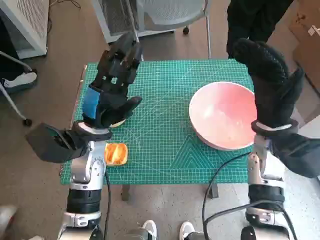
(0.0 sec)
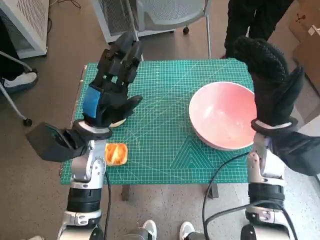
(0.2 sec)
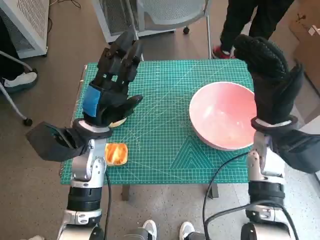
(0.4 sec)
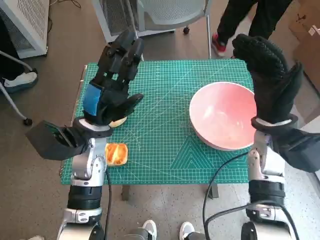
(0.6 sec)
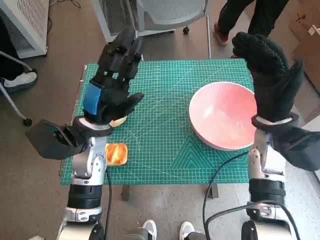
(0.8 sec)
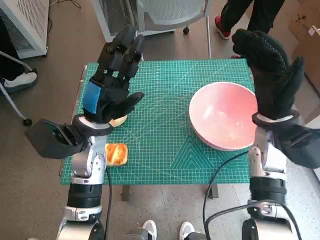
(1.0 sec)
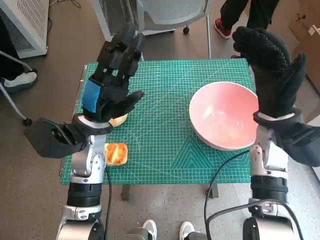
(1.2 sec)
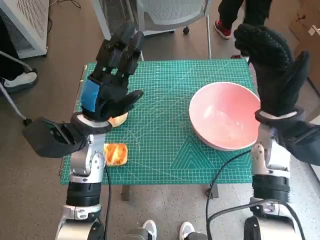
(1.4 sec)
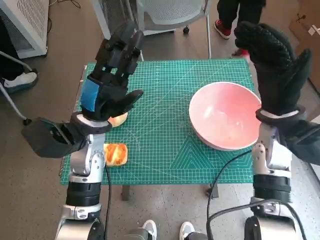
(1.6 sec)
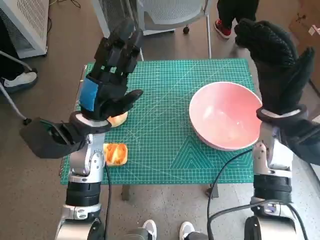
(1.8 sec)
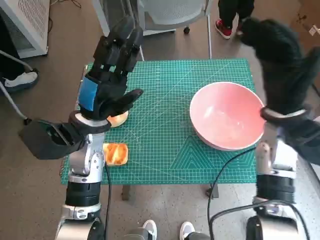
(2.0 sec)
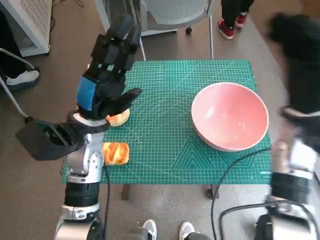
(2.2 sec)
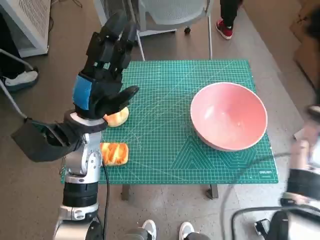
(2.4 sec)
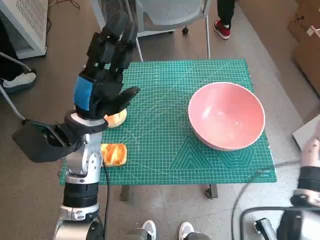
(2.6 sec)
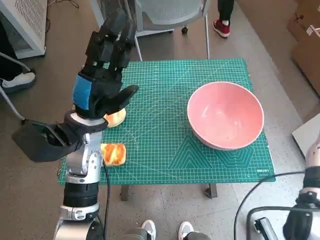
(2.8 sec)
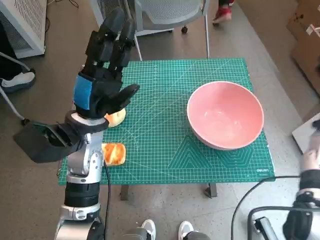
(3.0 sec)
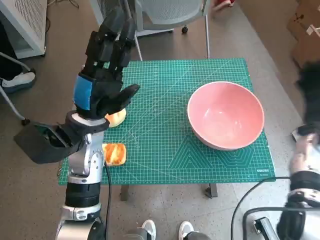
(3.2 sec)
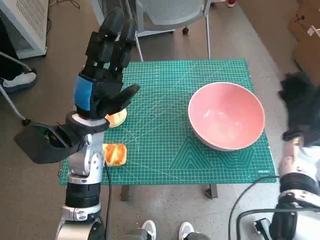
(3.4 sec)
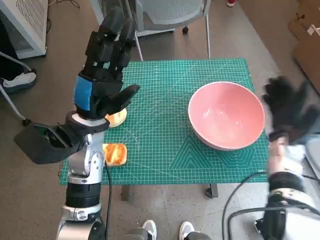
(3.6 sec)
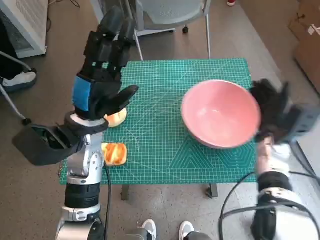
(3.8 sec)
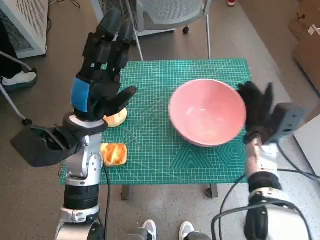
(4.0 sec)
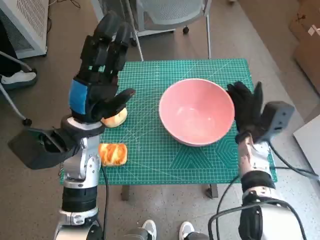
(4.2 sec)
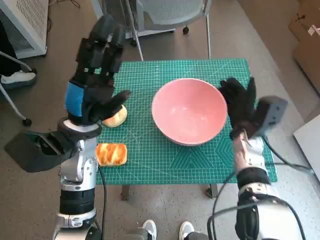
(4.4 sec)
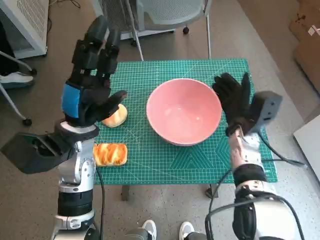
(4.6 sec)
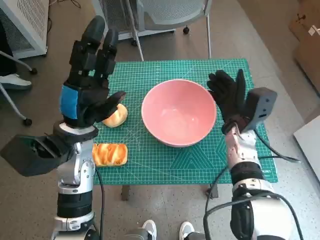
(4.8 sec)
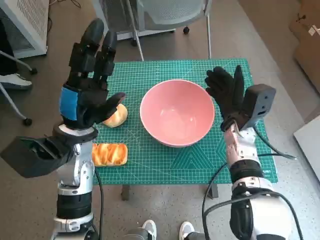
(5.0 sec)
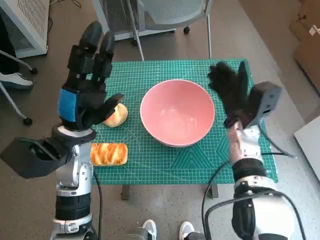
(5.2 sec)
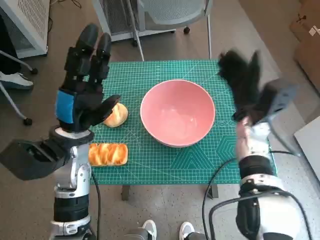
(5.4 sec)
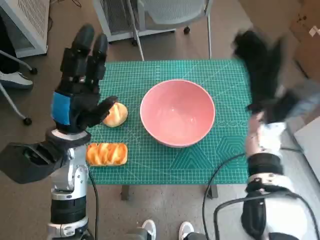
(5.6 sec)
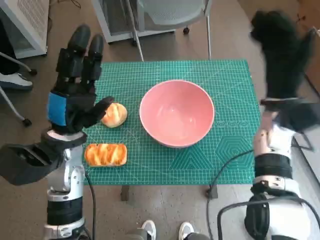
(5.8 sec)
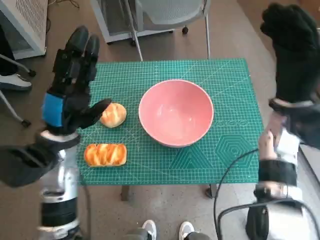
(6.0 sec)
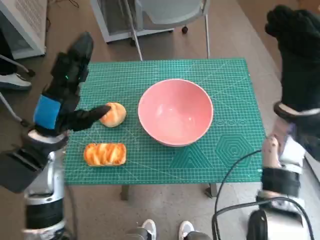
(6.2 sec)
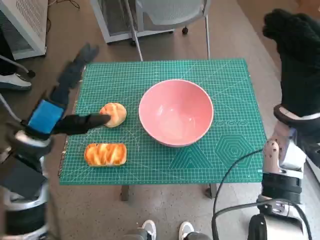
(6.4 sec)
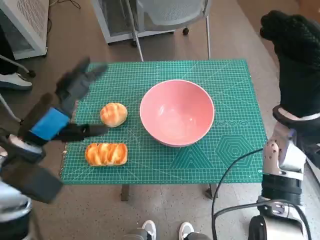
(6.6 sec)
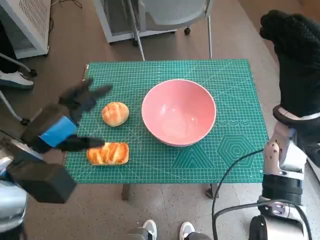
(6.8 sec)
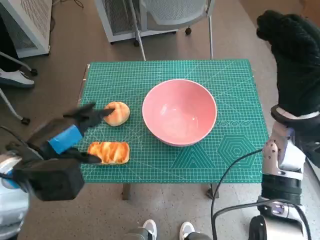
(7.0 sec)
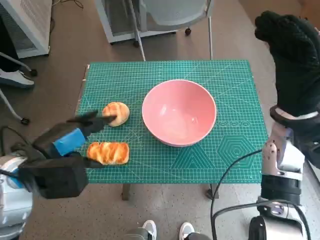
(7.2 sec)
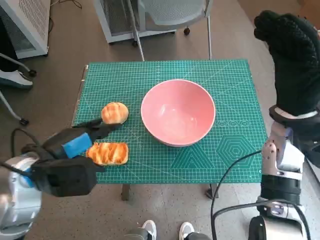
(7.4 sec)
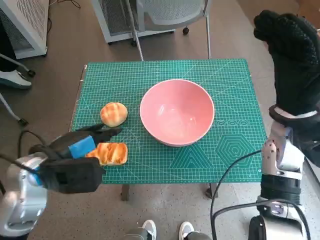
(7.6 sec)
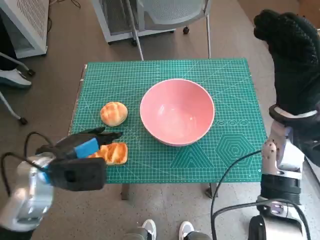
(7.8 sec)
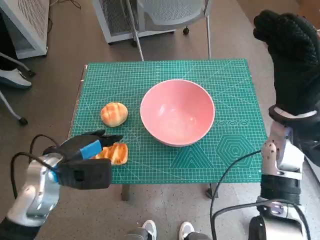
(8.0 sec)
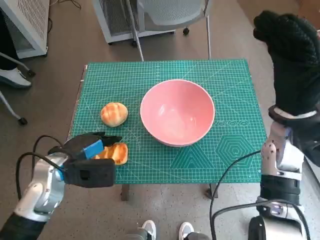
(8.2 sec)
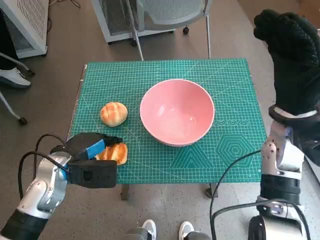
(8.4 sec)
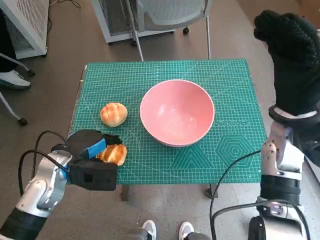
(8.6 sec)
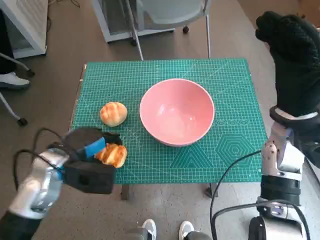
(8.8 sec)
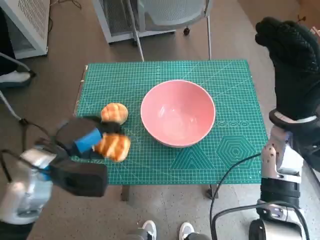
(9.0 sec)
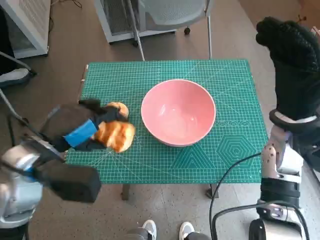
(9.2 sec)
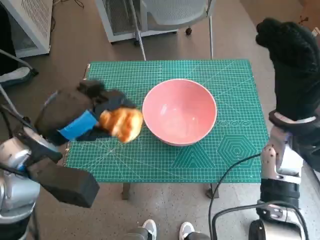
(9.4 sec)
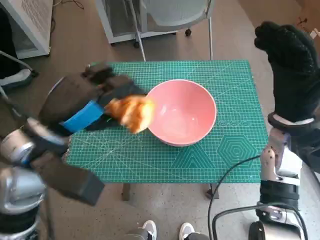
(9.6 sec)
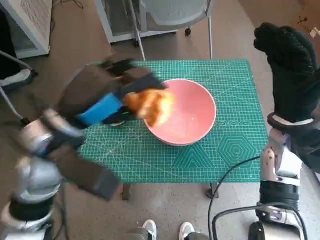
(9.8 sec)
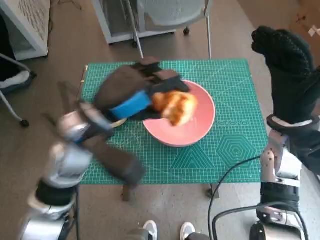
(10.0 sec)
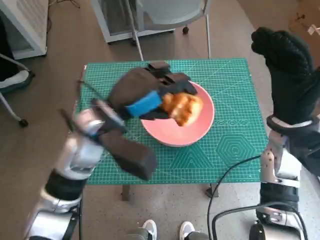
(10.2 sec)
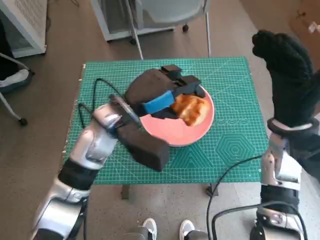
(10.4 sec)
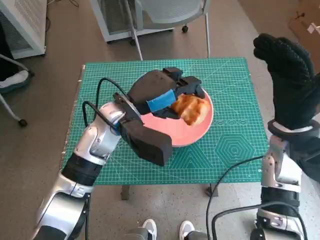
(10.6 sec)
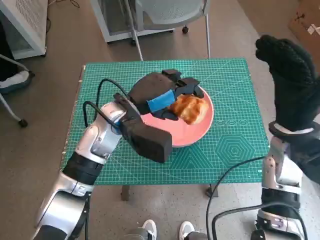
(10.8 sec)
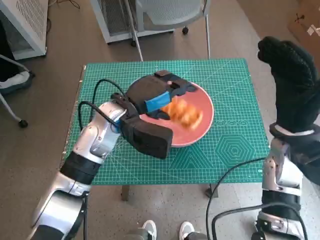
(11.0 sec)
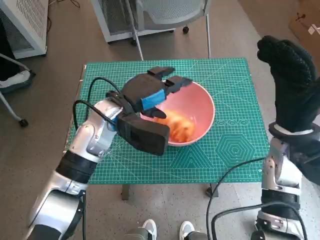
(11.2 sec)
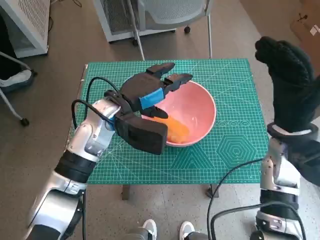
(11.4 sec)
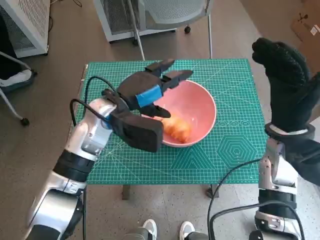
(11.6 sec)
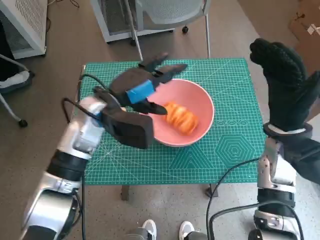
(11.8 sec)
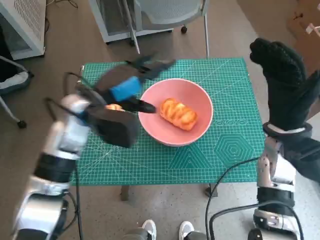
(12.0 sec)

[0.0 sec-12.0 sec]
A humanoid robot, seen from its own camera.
Step, 0.0 sec to 5.0 sec: Move the pink bowl to the center of table with right hand.
Step, 5.2 sec to 8.4 sec: Grasp the long bread with left hand.
Step, 8.6 sec to 11.2 sec: Place the long bread in pink bowl with left hand.
1.6 sec to 3.0 sec: The right hand shifts some 10 cm to the right.
3.0 sec to 4.4 sec: The right hand shifts about 15 cm to the left and downward.
4.4 sec to 6.0 sec: The right hand moves upward, some 10 cm.
9.0 sec to 10.4 sec: The left hand moves to the right and forward, some 15 cm.
10.4 sec to 12.0 sec: The left hand moves some 5 cm.

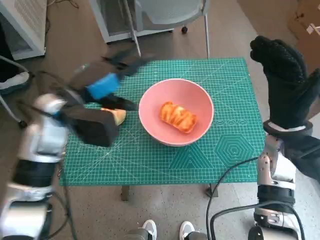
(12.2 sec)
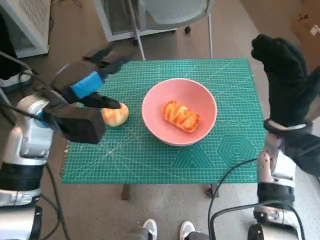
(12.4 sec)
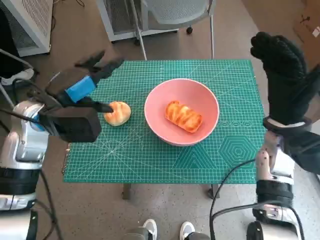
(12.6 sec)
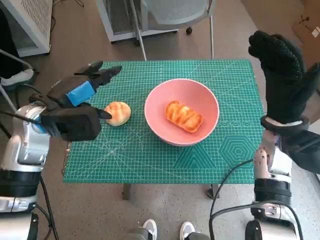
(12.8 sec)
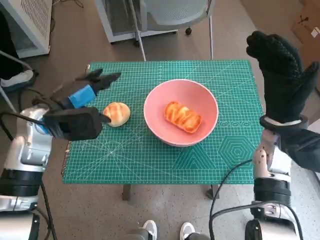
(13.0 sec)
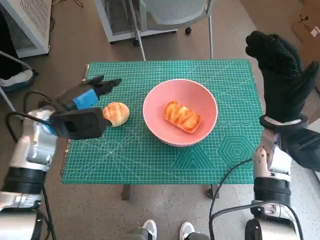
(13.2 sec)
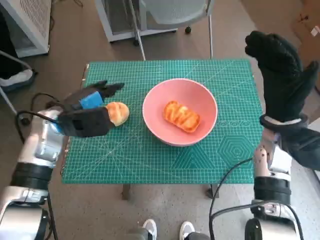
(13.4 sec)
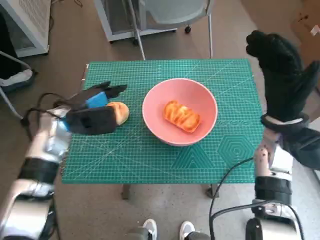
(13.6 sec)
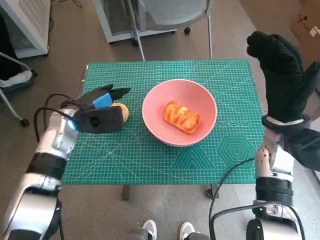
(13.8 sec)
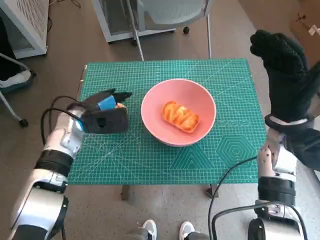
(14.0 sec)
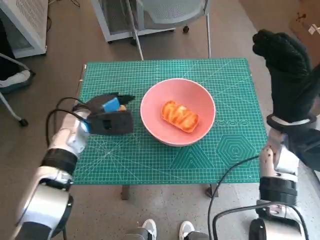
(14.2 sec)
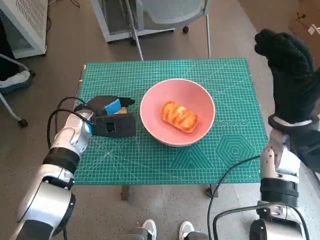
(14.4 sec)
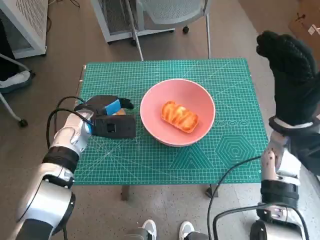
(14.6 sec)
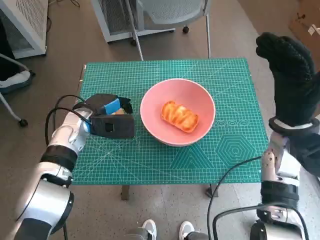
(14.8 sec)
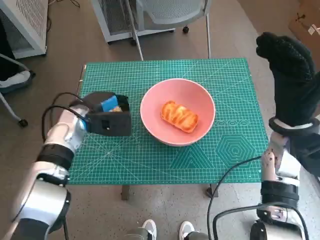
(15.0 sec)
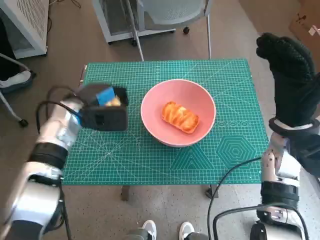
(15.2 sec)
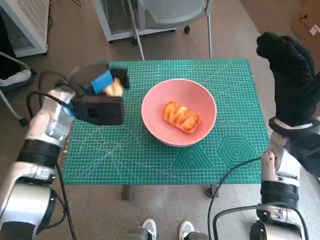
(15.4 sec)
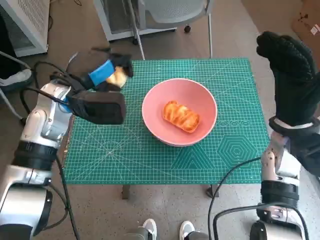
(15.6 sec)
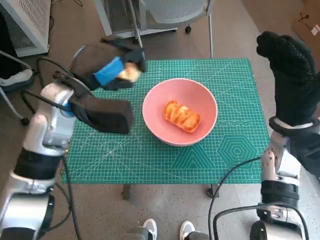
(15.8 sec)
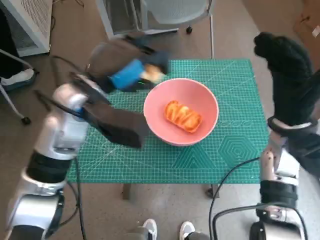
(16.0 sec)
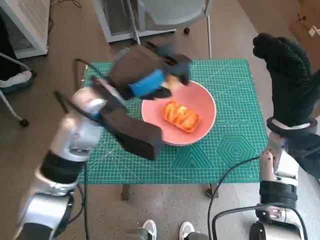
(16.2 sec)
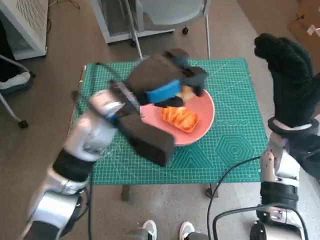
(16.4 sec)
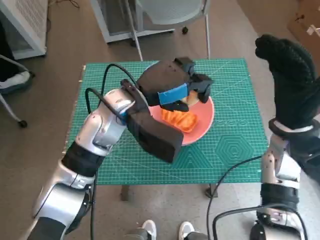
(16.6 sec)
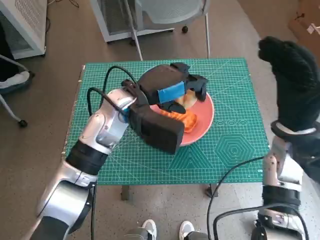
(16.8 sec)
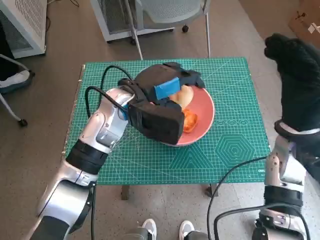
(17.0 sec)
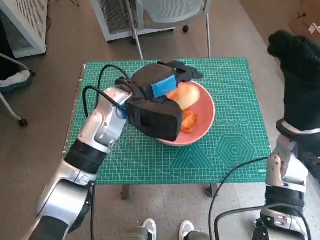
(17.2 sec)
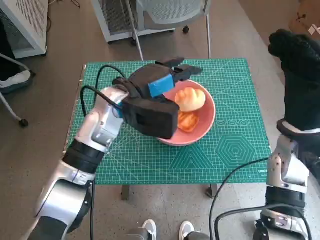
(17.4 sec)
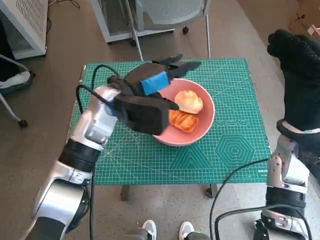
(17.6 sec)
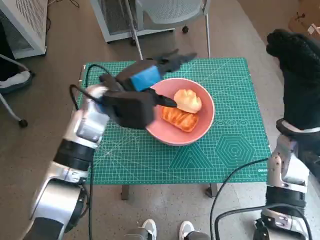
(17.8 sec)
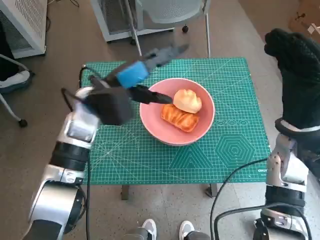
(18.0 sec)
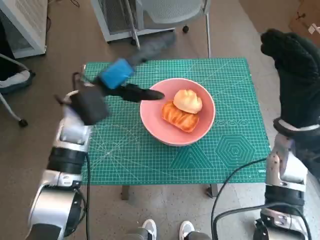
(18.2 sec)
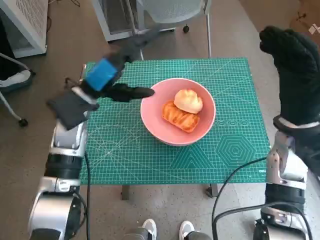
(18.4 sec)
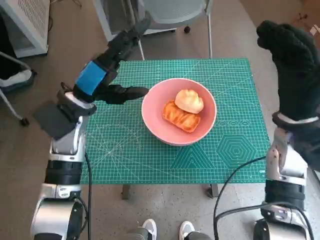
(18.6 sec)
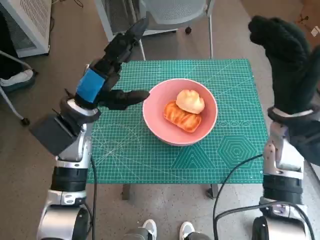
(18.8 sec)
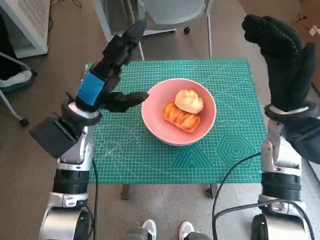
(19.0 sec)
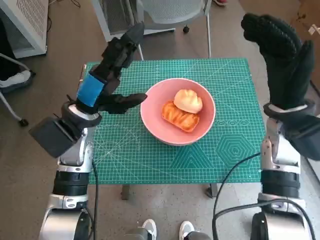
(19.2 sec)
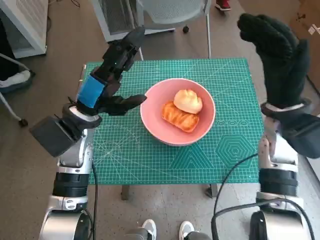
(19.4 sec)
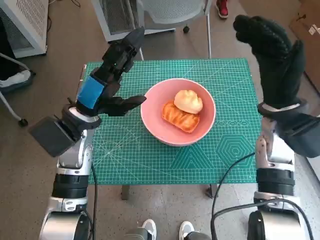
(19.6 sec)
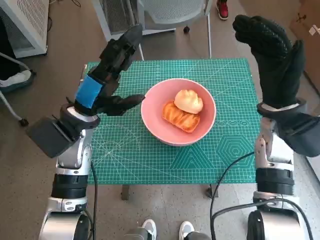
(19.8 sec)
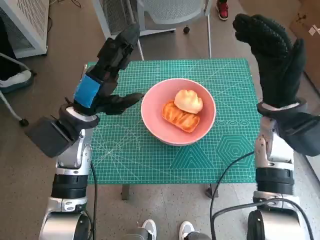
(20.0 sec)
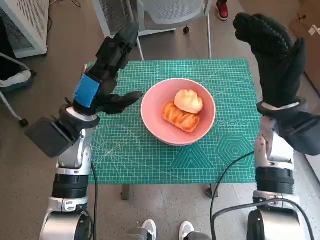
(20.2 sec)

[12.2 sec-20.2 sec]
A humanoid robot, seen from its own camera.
Step, 12.2 sec to 14.6 sec: Grasp the round bread with left hand.
Step, 14.8 sec to 17.4 sec: Place the round bread in pink bowl with left hand.
12.2 sec to 13.8 sec: The left hand heads downward, covering approximately 5 cm.
15.4 sec to 17.0 sec: The left hand goes some 10 cm to the right.
17.0 sec to 18.6 sec: The left hand shifts approximately 10 cm to the left.
